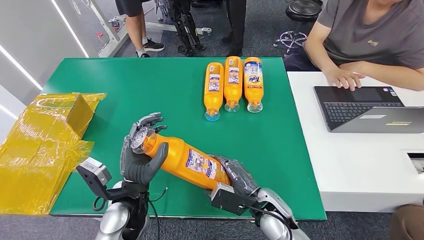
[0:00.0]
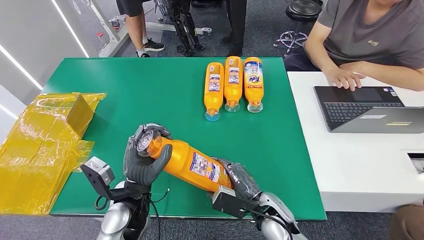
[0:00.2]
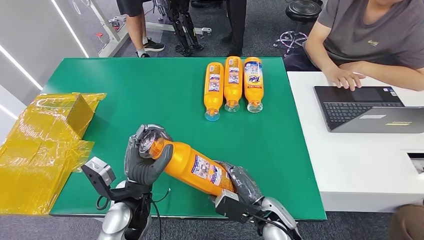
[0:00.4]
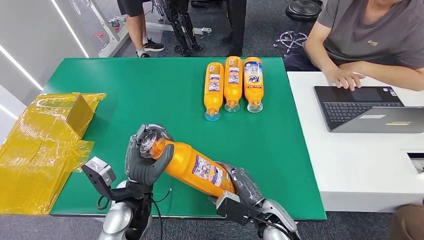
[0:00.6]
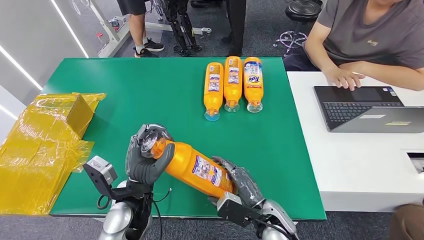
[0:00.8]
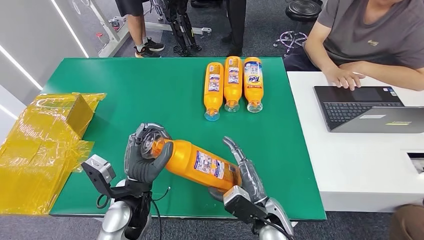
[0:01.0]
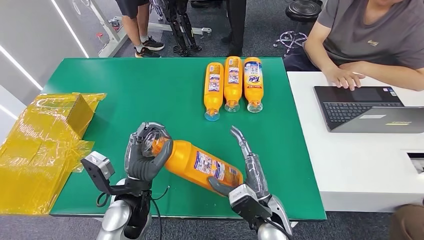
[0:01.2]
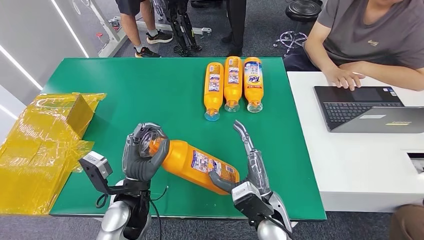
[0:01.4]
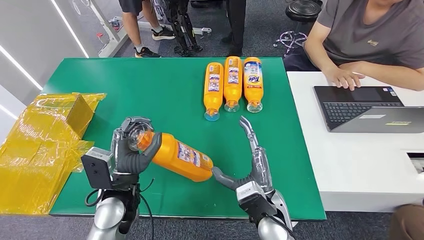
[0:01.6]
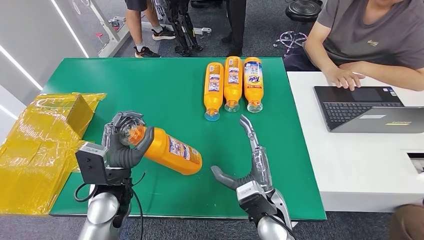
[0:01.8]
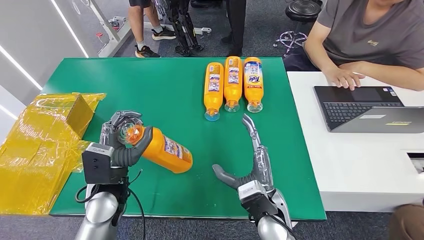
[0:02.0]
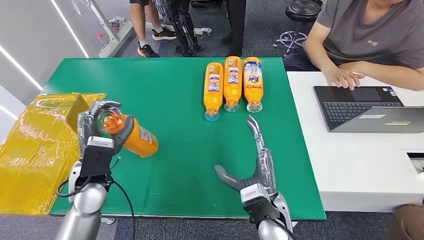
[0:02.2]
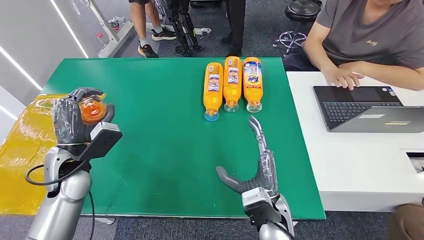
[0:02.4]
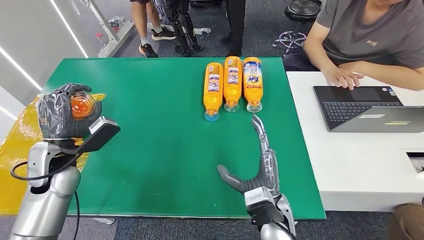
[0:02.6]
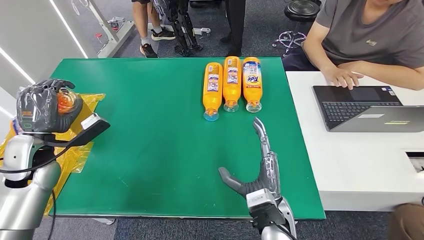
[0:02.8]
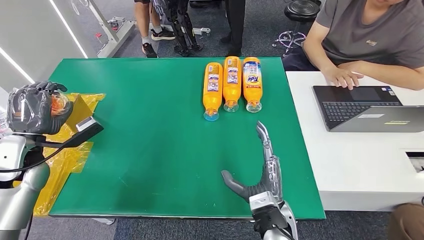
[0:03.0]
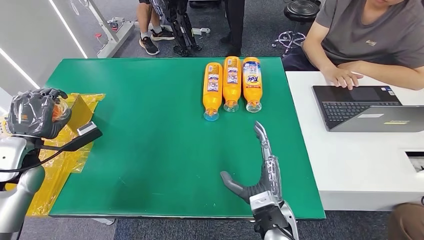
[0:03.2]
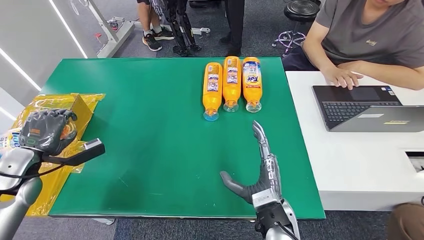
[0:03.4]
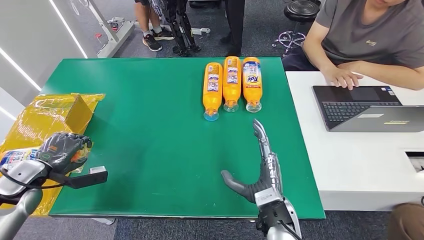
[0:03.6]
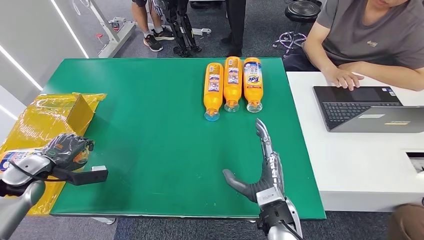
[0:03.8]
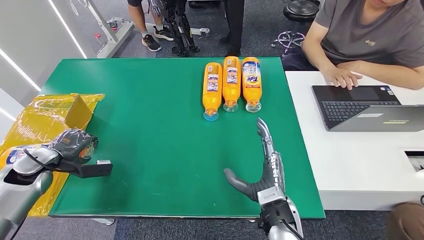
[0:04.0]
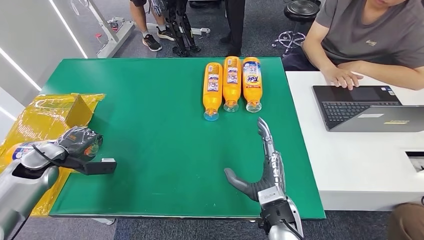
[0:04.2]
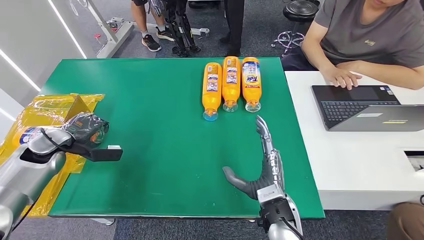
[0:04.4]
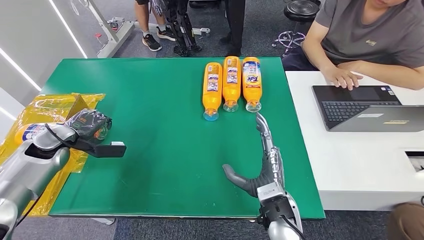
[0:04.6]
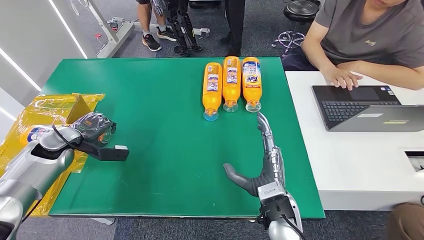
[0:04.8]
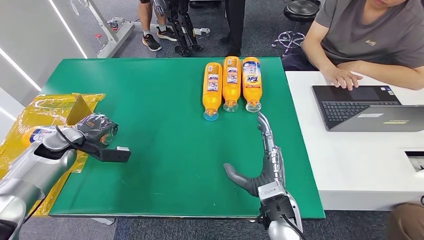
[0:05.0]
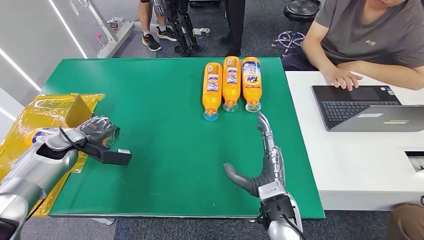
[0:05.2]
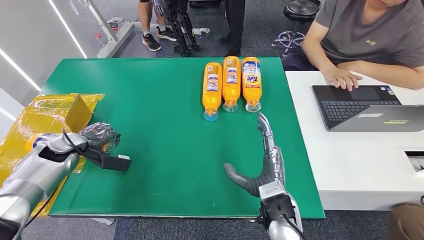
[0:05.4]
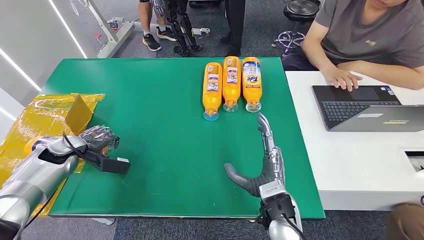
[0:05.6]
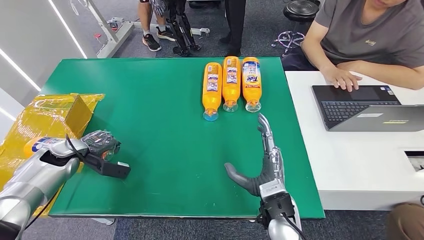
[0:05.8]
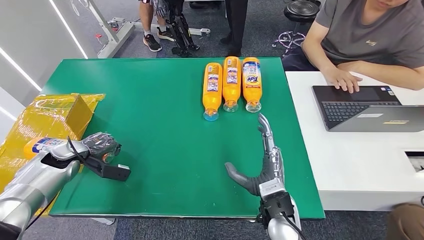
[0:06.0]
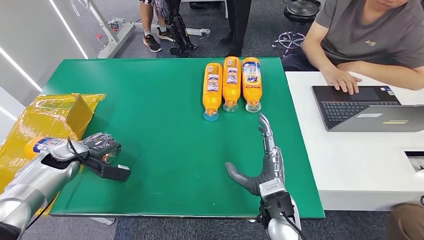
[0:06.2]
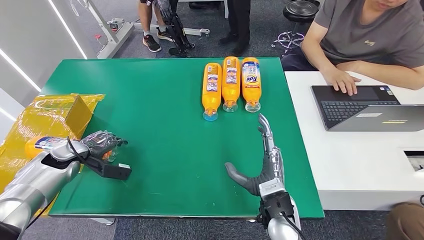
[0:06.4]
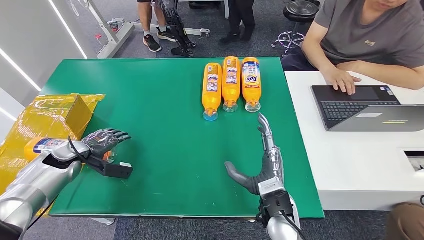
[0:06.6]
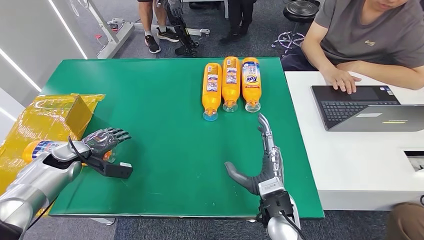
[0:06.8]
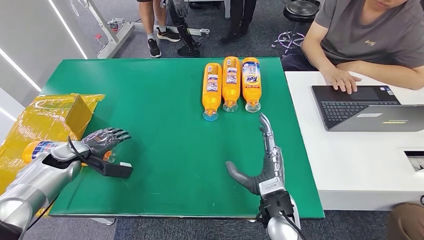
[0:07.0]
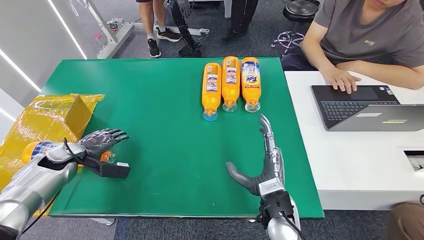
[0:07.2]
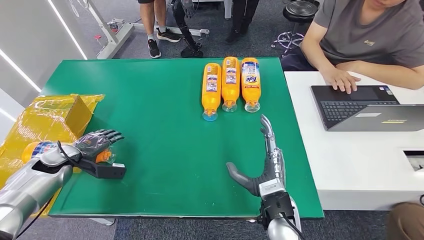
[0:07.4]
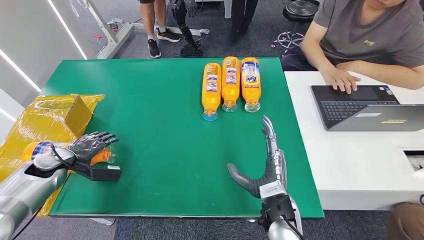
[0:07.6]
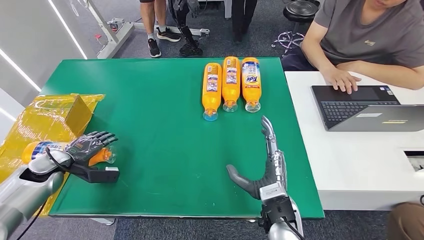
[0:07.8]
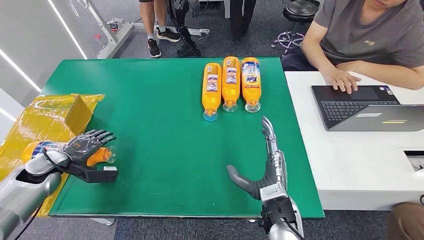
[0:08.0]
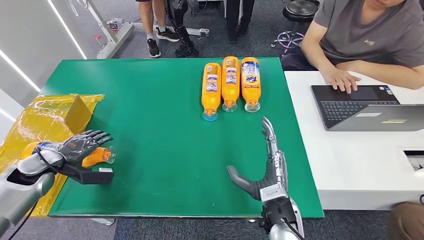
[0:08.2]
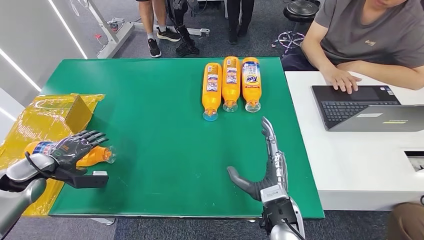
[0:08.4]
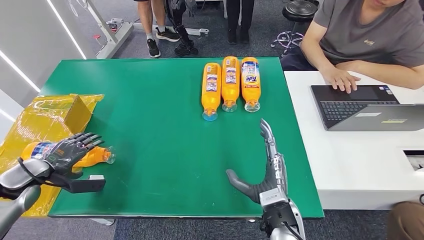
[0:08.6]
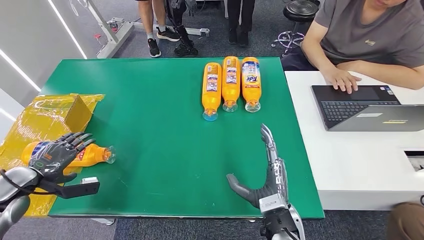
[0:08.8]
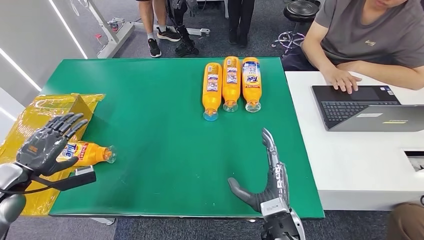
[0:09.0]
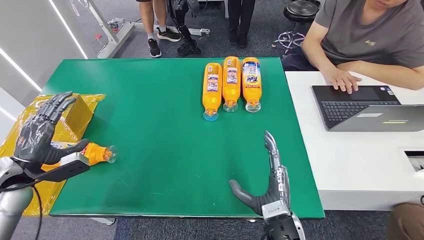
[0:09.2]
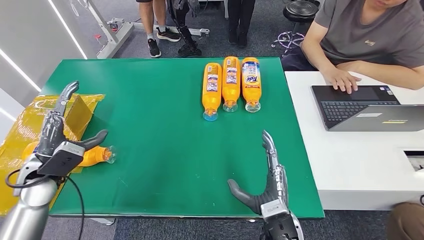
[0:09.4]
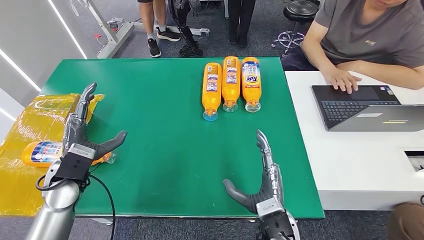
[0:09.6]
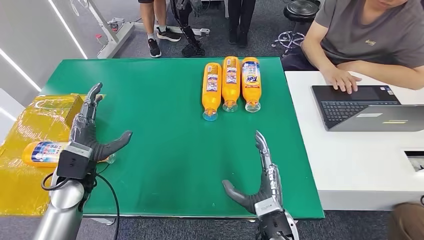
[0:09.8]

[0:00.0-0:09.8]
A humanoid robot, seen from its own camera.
Step, 0:00.0 to 0:09.6: Turn the bottle to the front side.
0:02.8 to 0:04.2: The left hand moves downward and to the left, some 10 cm.
0:04.2 to 0:07.0: The hands make only small movements.
0:07.0 to 0:08.4: The left hand shifts approximately 10 cm backward and to the left.
0:08.4 to 0:09.8: The left hand moves to the right, roughly 15 cm.
